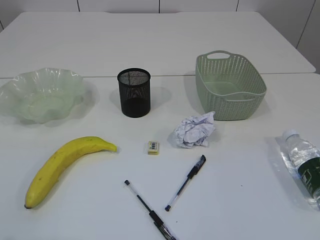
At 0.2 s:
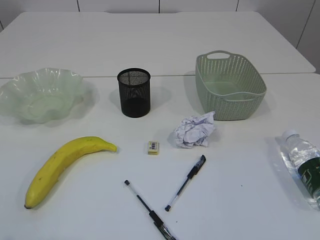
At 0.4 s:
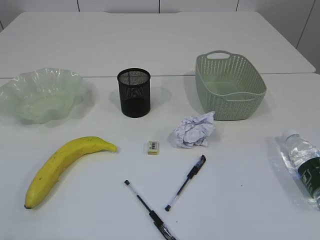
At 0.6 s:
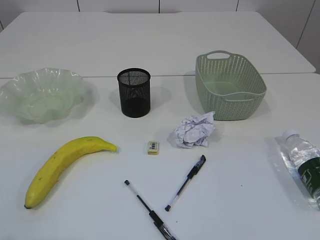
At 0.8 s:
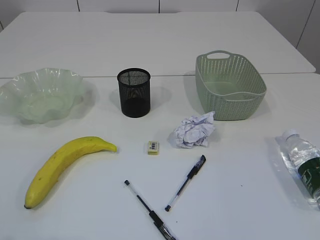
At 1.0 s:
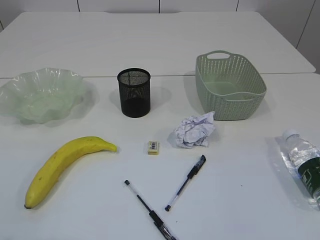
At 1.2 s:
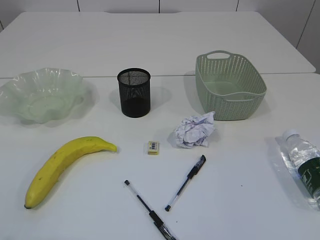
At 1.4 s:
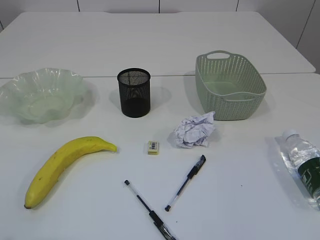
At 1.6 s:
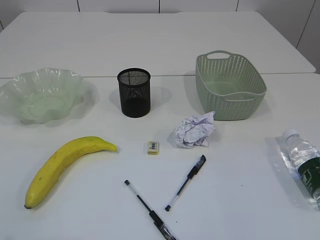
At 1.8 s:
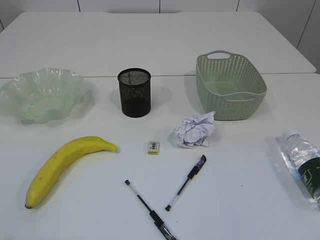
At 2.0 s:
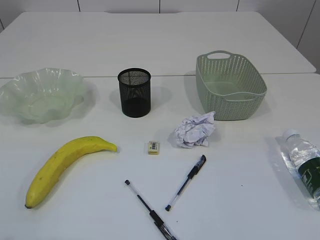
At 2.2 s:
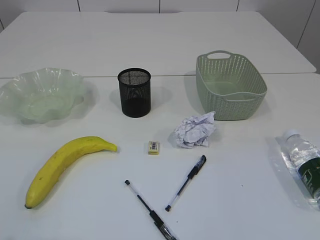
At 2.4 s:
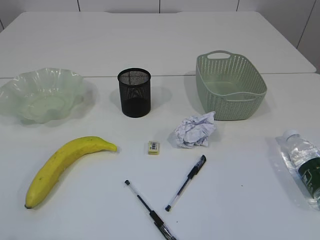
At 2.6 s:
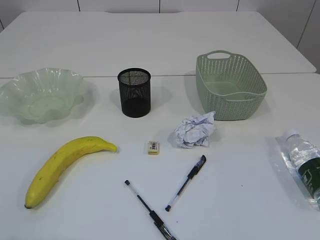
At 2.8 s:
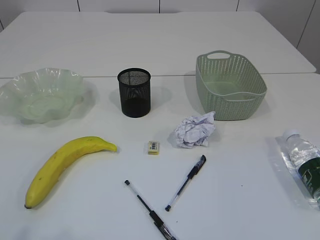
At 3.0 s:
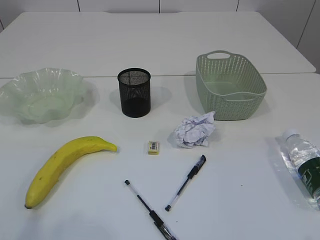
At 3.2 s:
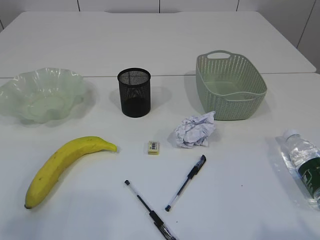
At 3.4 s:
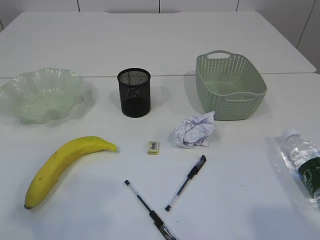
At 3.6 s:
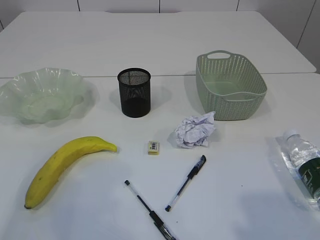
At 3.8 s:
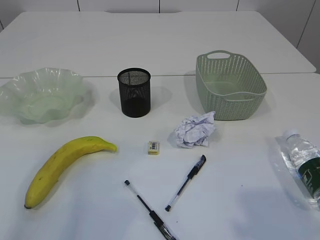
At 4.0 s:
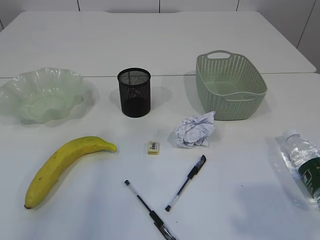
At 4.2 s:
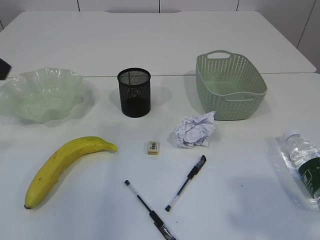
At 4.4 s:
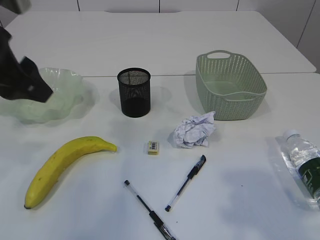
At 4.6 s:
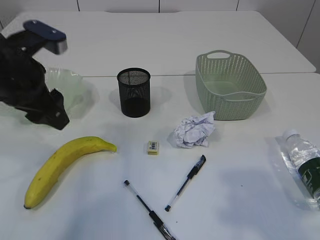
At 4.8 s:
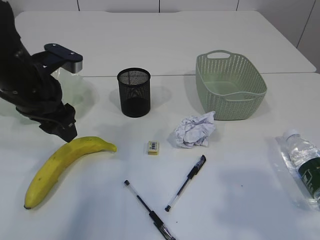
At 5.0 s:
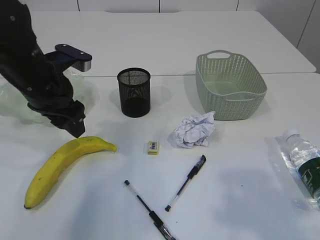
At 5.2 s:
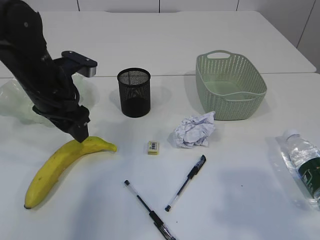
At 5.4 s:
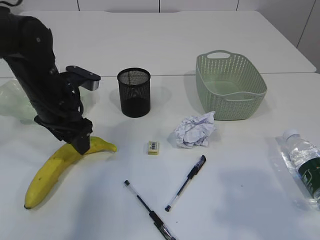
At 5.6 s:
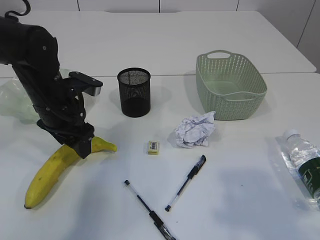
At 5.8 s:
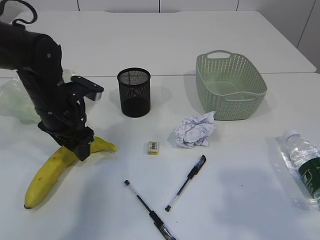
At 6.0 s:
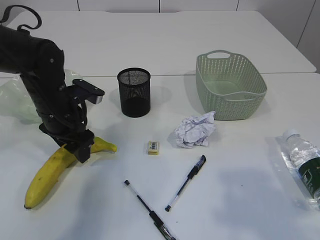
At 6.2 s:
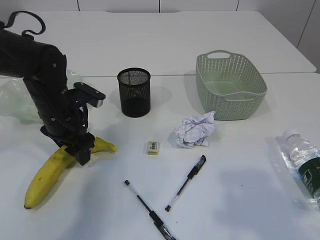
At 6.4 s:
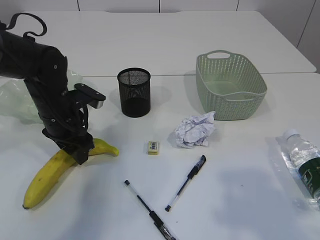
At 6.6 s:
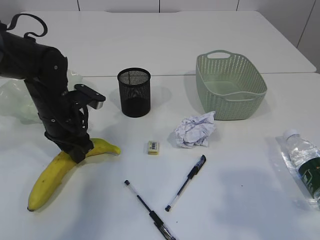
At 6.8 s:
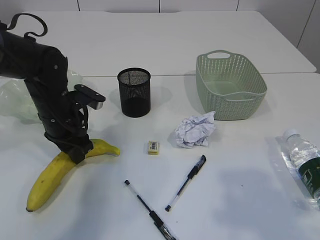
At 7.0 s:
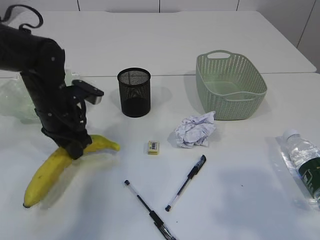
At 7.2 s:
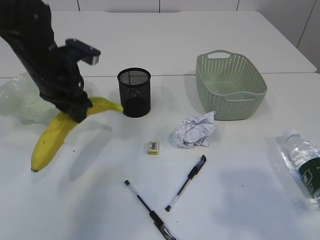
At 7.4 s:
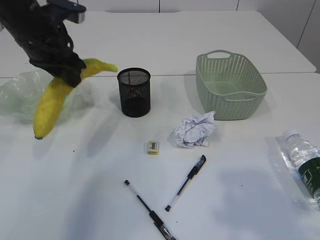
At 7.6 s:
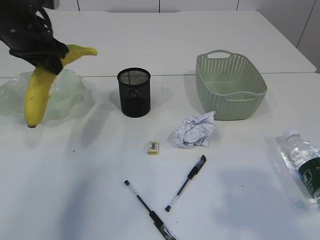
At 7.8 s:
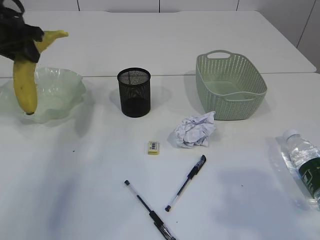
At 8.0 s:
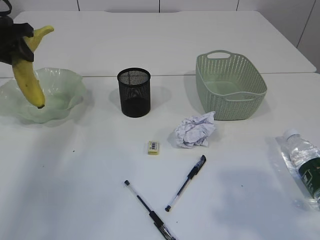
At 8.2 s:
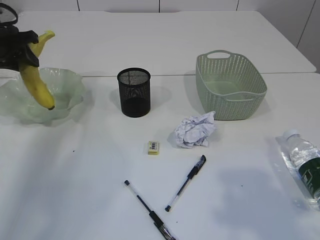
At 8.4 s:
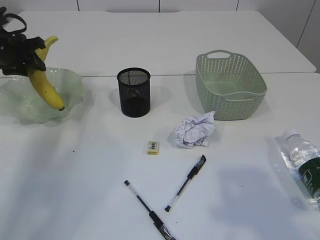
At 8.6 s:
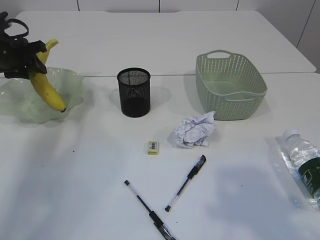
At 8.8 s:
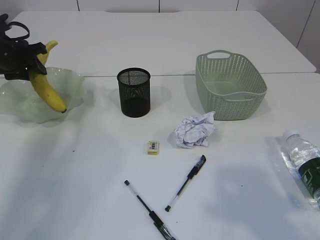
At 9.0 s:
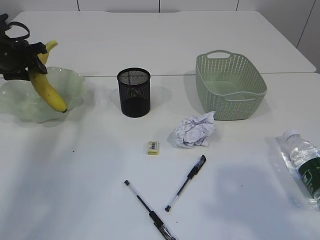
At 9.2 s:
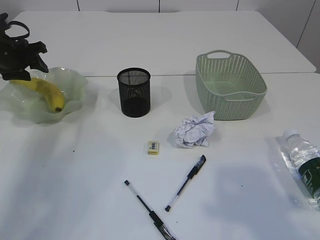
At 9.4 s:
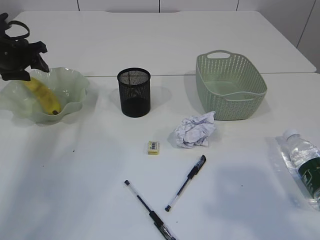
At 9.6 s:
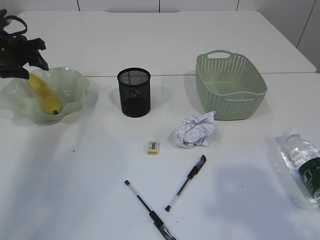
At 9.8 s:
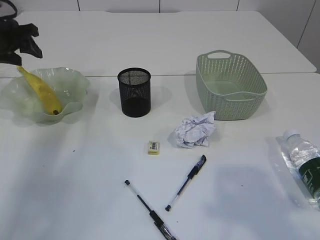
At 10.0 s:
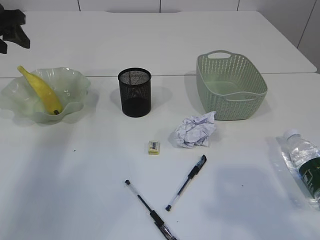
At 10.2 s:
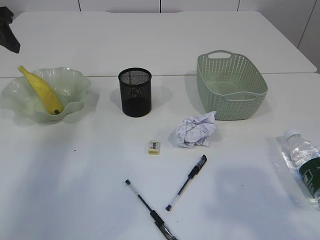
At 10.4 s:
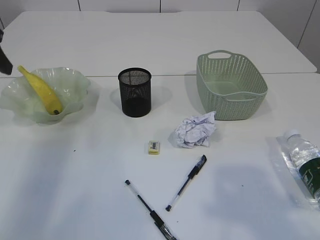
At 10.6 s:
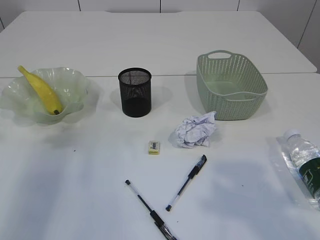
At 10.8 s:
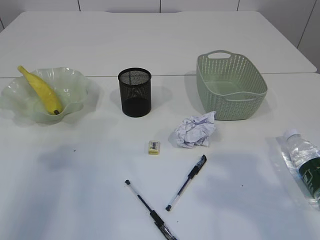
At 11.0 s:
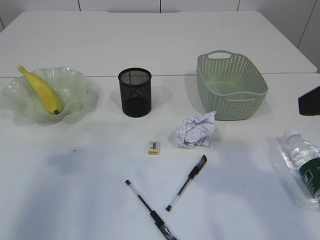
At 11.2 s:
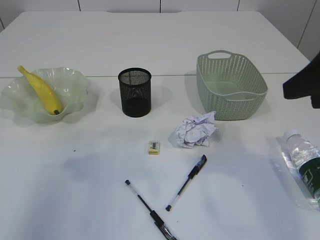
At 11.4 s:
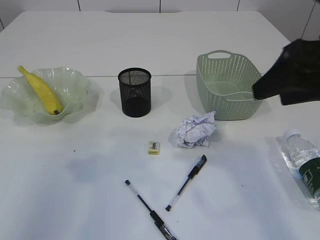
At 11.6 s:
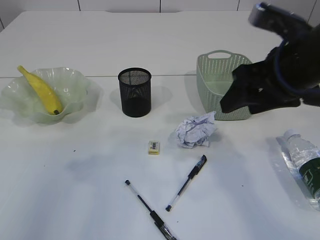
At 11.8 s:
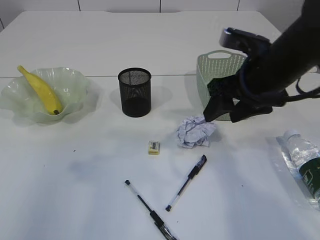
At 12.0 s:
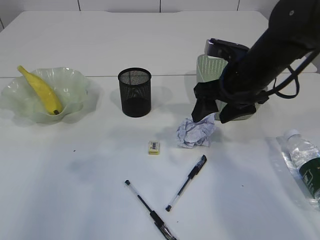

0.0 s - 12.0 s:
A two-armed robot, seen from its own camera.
Step, 7.2 s - 9.8 s: Place the banana in the plate.
3.0 s - 4.4 s: The left gripper moves forward, some 25 cm; the right gripper shifts some 15 cm forward and upward.
4.4 s - 6.0 s: The left gripper is displaced downward and forward by approximately 20 cm.
6.0 s - 7.6 s: The left gripper moves upward and to the left, some 15 cm, and closes.
7.6 s - 9.0 s: The left gripper is displaced to the left, downward and forward by about 15 cm.
9.0 s - 10.4 s: The left gripper is displaced backward and upward by some 15 cm.
10.4 s - 12.0 s: The left gripper moves backward, about 15 cm. Meanwhile the right gripper moves forward and downward, roughly 30 cm.

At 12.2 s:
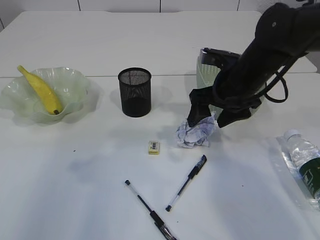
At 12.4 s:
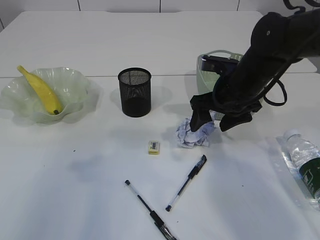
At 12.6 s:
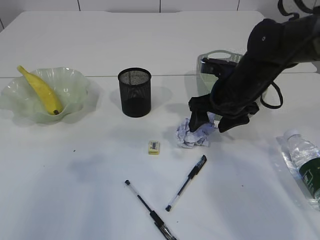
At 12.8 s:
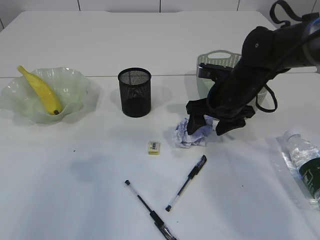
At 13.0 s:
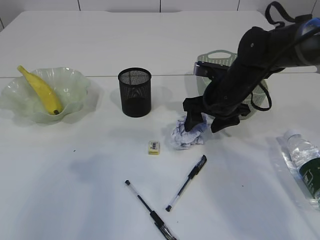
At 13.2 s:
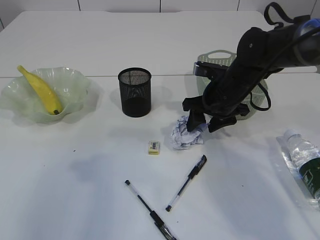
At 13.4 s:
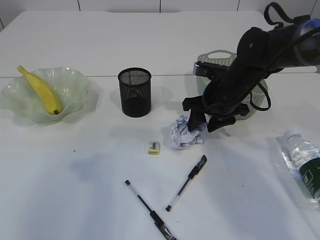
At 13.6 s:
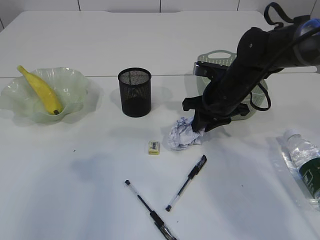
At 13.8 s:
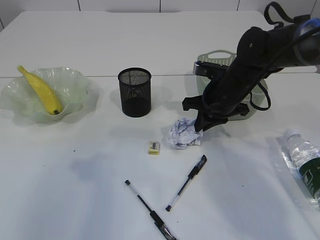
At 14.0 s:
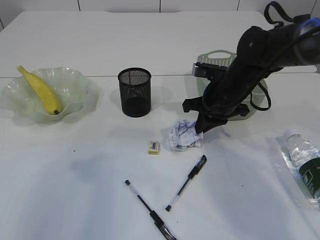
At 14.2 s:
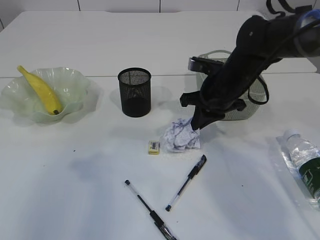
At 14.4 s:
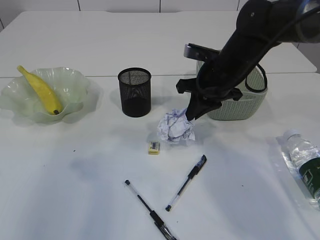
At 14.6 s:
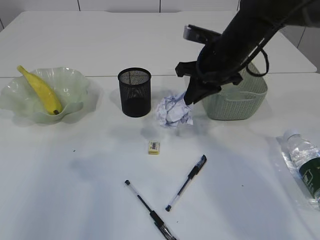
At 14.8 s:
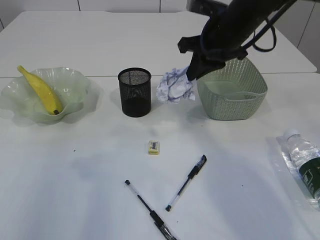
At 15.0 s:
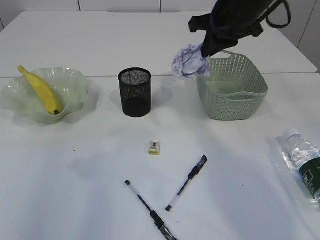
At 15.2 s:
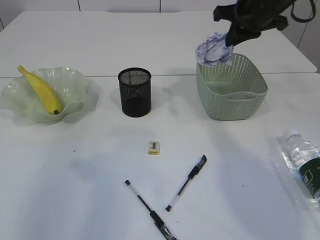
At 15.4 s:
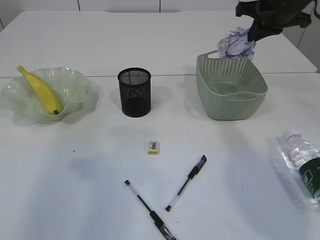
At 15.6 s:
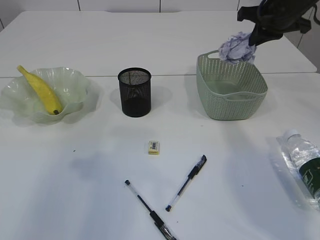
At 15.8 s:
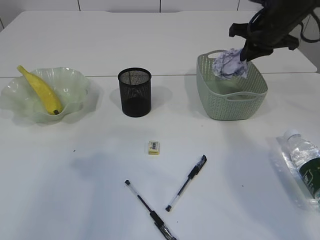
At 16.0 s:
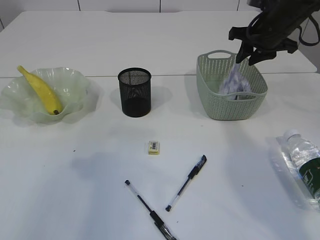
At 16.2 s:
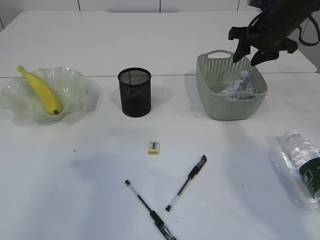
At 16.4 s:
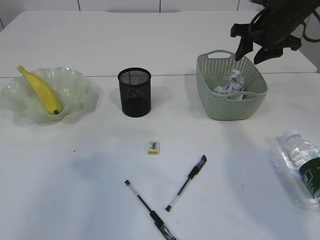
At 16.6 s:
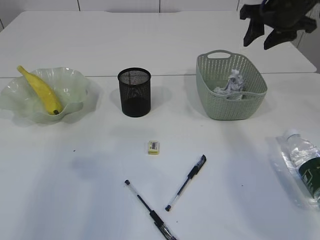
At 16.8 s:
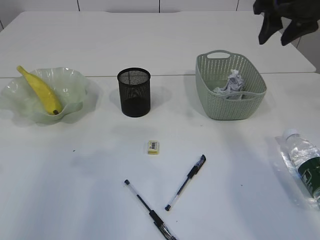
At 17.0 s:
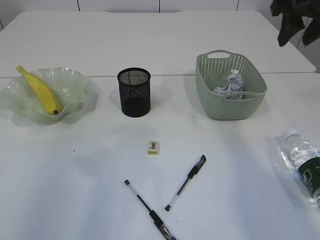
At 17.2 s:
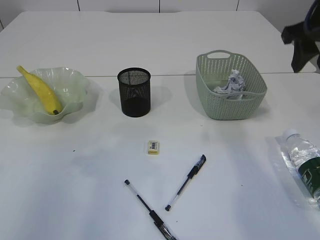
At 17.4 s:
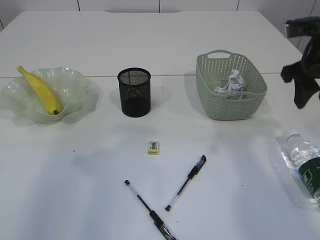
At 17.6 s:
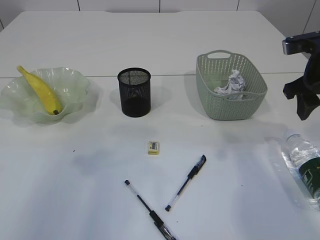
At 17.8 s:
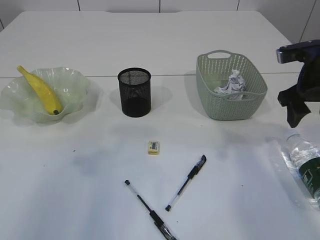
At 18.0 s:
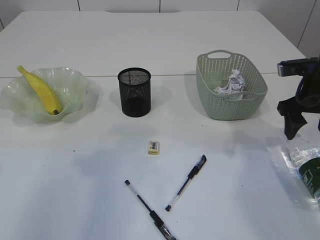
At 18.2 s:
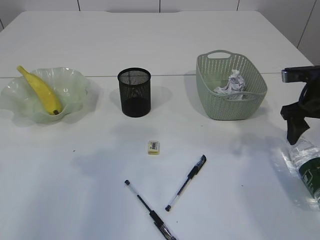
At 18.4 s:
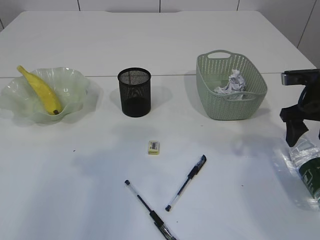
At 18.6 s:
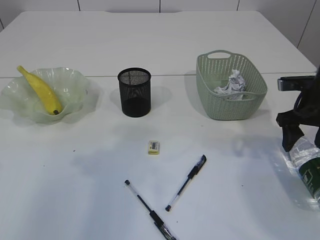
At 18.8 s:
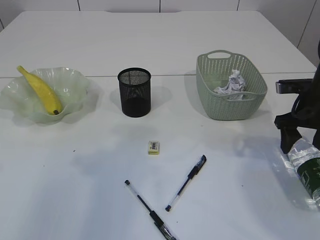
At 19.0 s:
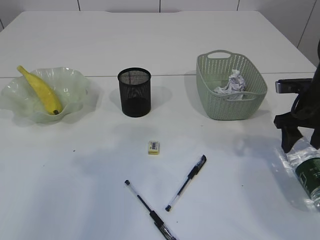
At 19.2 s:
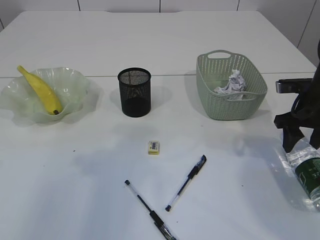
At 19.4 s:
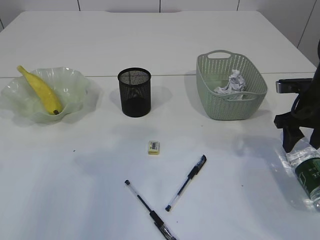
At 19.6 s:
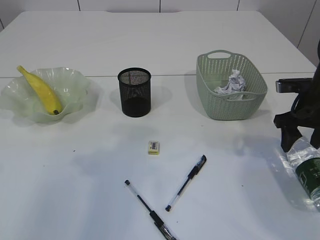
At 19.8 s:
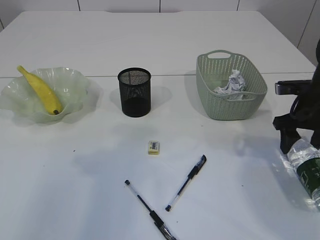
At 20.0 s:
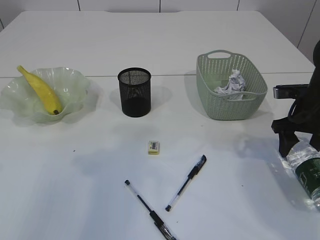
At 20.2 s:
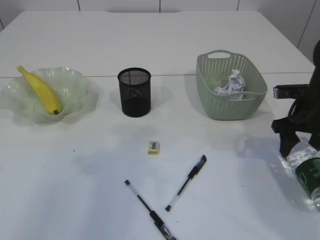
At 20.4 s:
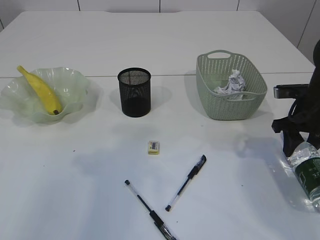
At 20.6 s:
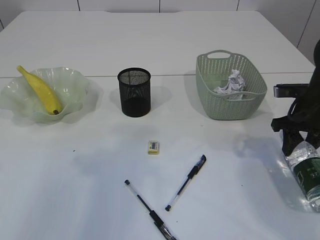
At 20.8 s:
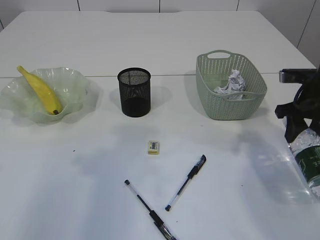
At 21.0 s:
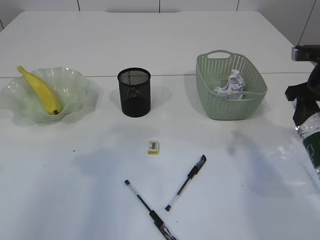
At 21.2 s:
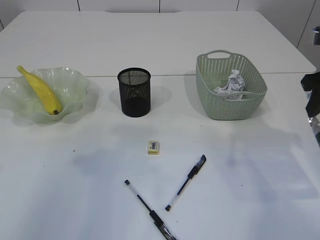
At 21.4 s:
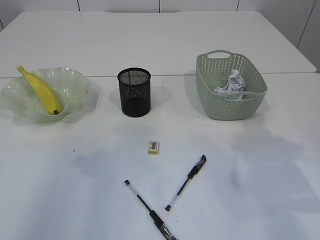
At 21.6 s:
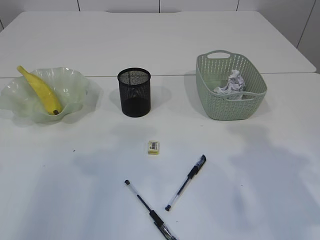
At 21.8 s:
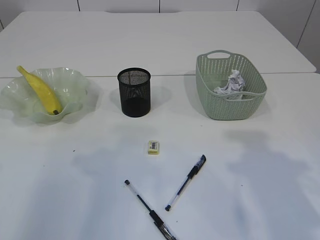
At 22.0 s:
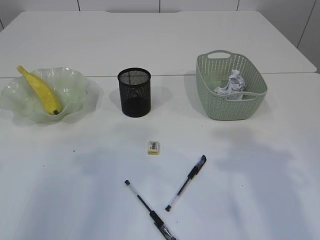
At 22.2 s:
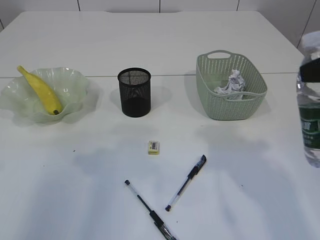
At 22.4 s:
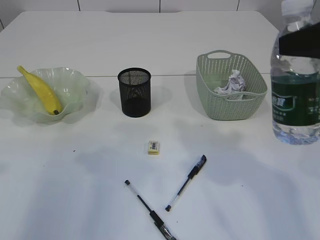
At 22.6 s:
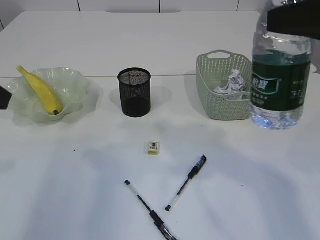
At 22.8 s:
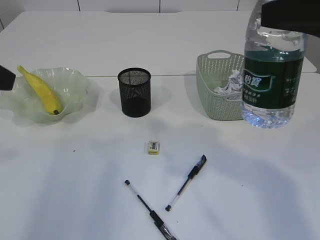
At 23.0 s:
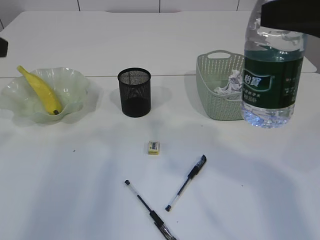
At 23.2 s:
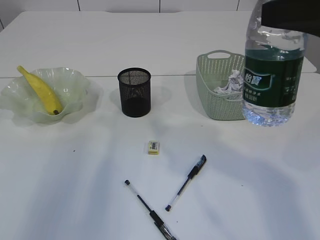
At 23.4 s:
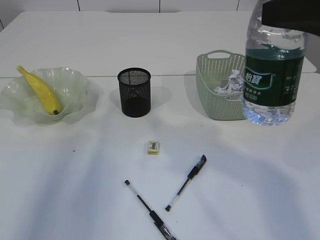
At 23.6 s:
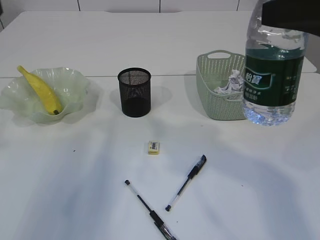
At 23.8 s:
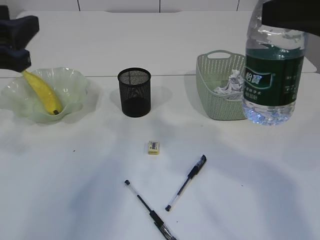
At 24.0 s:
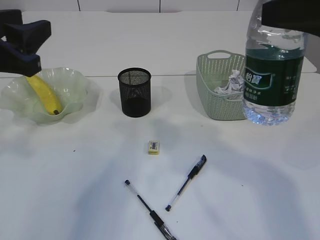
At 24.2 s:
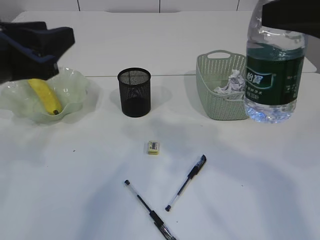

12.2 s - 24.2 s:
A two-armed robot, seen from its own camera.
Step, 12.2 s - 14.6 s: Pick up the waste paper.
Step, 14.8 s - 16.6 s: Place the waste paper in the basket.
Step, 16.8 s - 21.0 s: Pick up the bottle with the right arm.
12.2 s - 13.8 s: The right gripper shifts by roughly 5 cm, and closes.
13.8 s - 15.2 s: The right gripper heads upward, covering some 15 cm.
15.2 s - 16.6 s: The right gripper moves to the right, approximately 5 cm, and opens.
16.6 s - 18.2 s: The right gripper is displaced downward, backward and to the right by some 15 cm.
18.2 s - 19.8 s: The grippers move only a little.
19.8 s - 21.2 s: The right gripper heads upward and backward, covering approximately 10 cm.
21.2 s - 22.6 s: The right gripper shifts some 15 cm backward, upward and to the left.
22.6 s - 24.2 s: The left gripper goes approximately 5 cm to the right.
